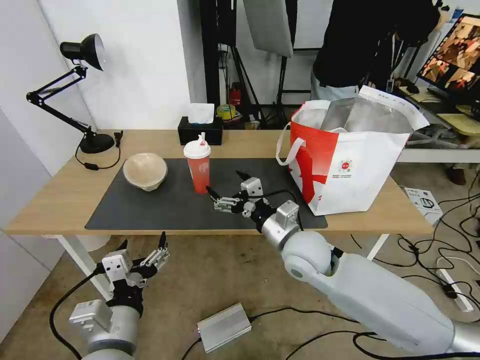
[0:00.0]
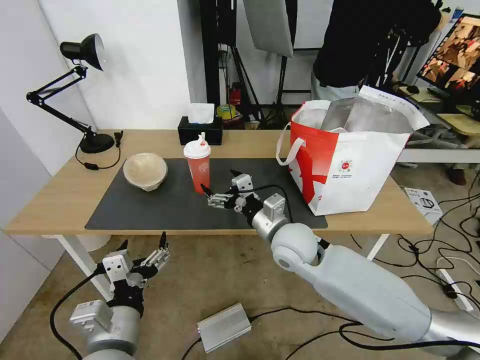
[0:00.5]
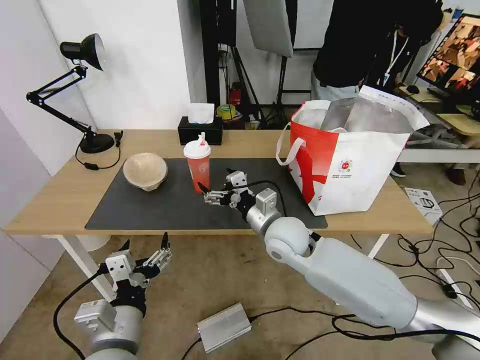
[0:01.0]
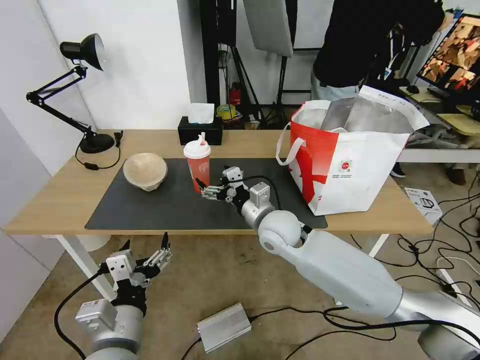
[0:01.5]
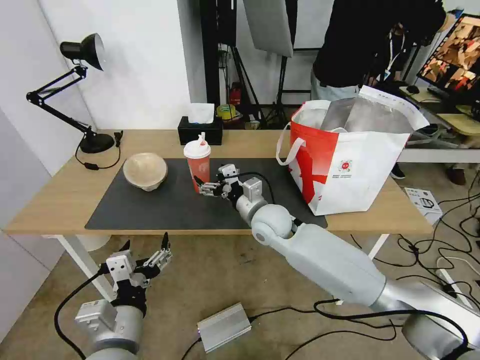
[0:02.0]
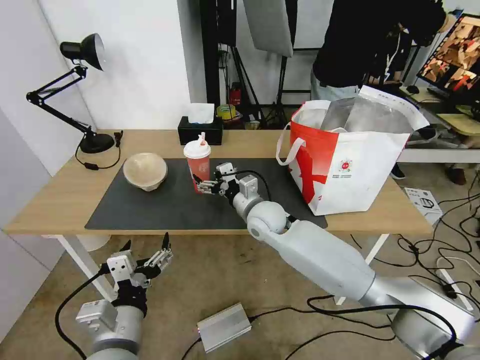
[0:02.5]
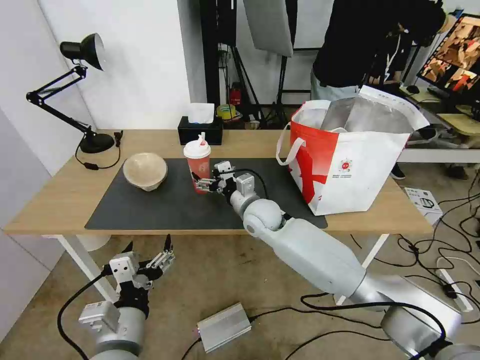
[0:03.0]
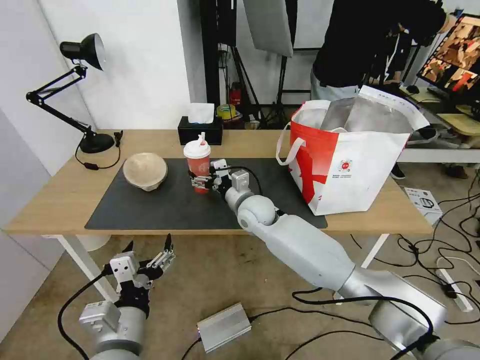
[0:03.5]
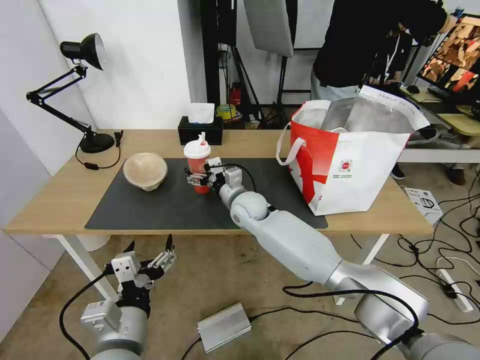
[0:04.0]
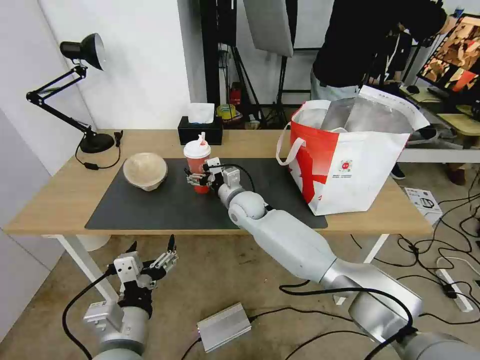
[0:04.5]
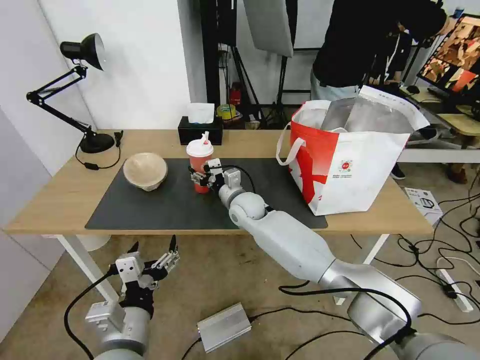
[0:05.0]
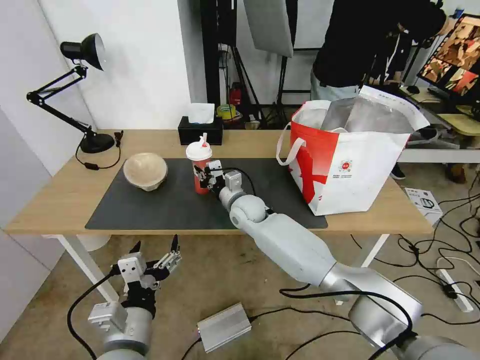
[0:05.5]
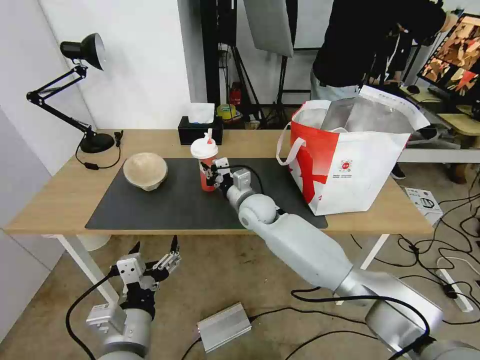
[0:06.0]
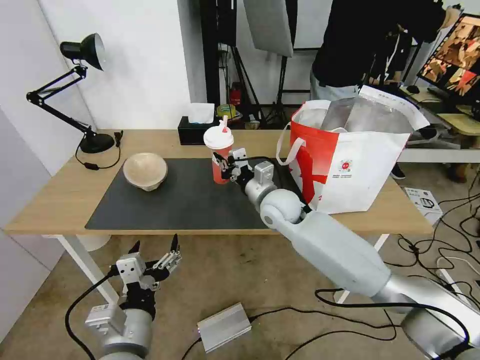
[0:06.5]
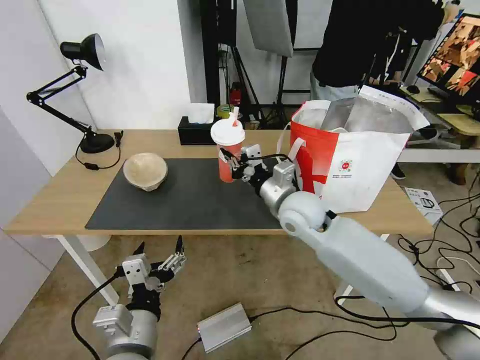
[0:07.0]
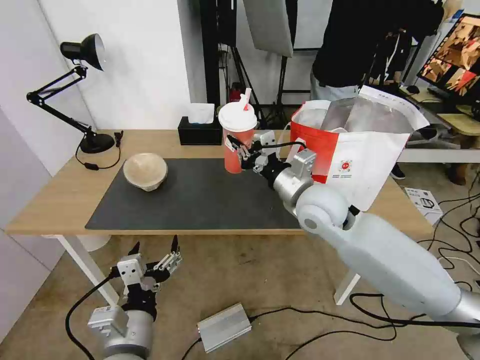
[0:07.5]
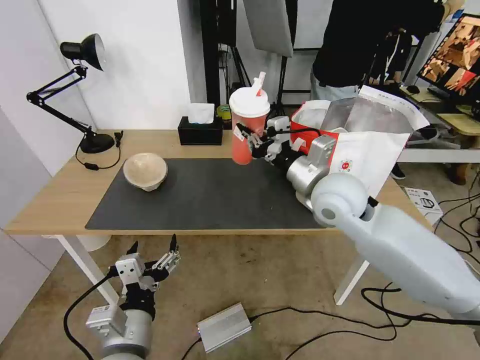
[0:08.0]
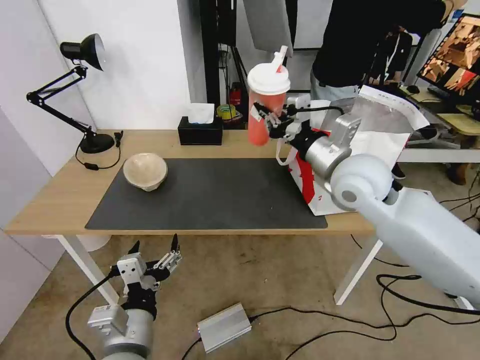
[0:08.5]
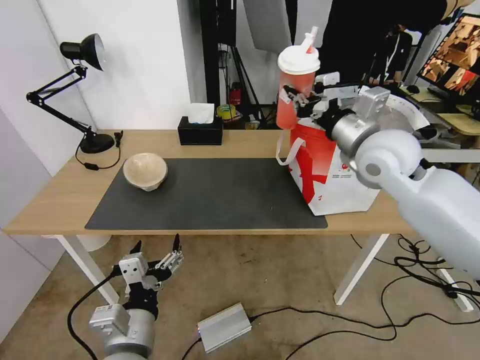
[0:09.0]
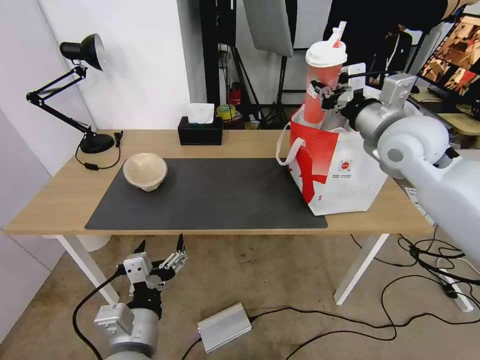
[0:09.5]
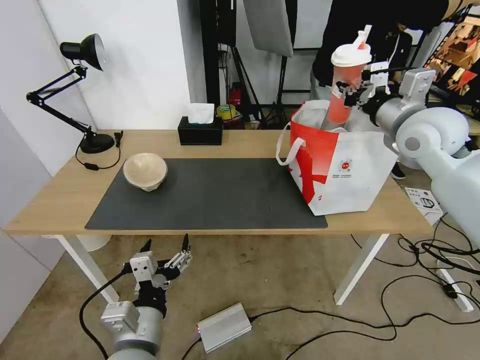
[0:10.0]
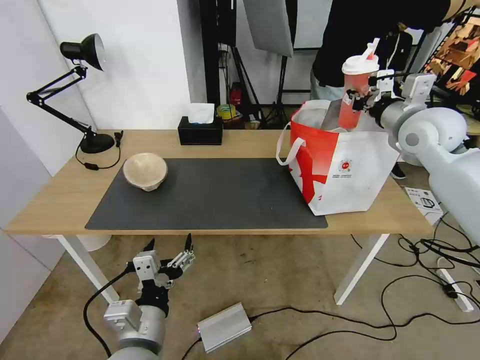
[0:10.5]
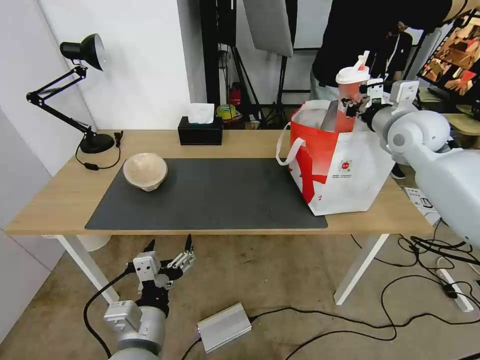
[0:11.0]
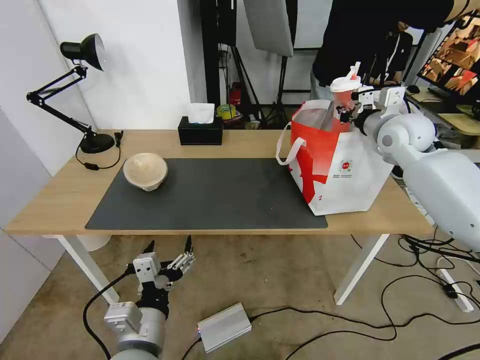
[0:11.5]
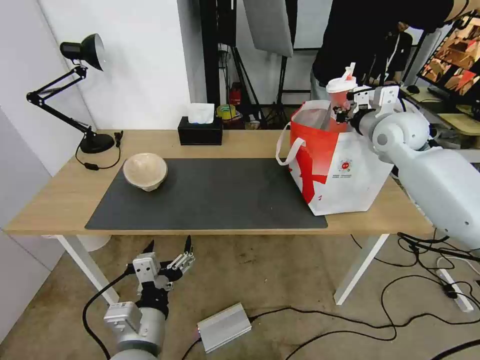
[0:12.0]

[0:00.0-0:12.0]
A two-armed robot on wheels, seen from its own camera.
Task of the whole recording: Pick up the trash from the table and place it into the takeout bag.
0:00.0 to 0:02.0: The right gripper moves forward and to the left, about 10 cm.
0:02.0 to 0:04.0: The right gripper moves forward, about 5 cm.
0:04.0 to 0:06.0: The right gripper closes its fingers.
0:06.0 to 0:08.0: The right gripper is displaced upward, to the right and backward by some 25 cm.
0:08.0 to 0:10.0: The right gripper travels to the right, upward and forward by some 20 cm.
0:10.0 to 0:12.0: The right gripper goes approximately 5 cm forward.

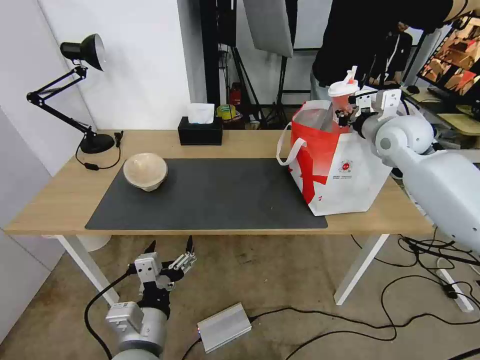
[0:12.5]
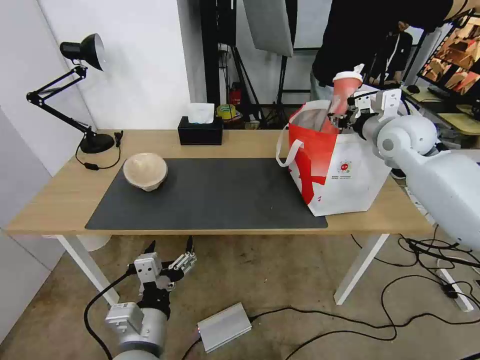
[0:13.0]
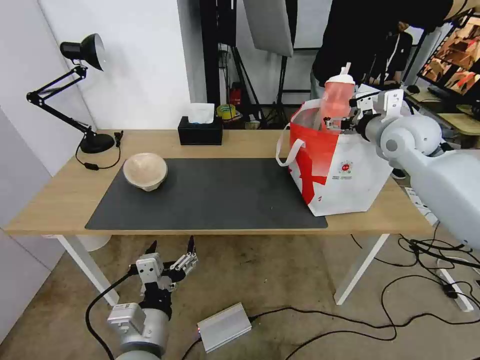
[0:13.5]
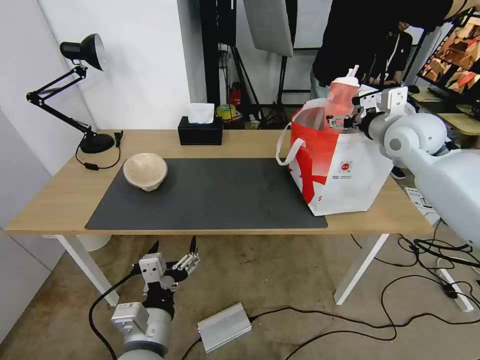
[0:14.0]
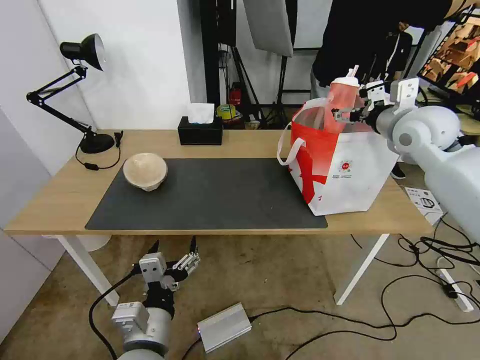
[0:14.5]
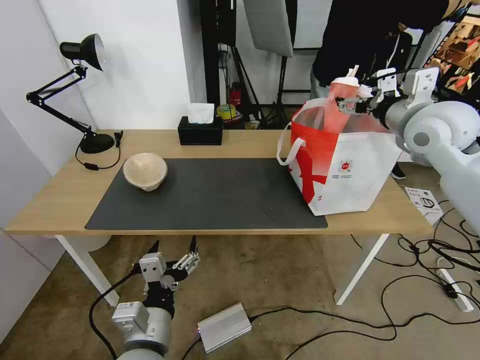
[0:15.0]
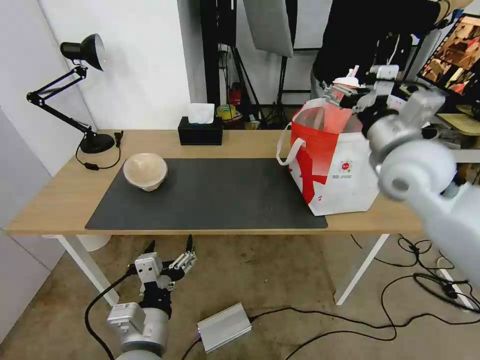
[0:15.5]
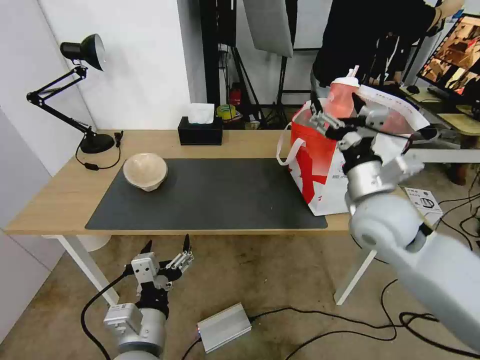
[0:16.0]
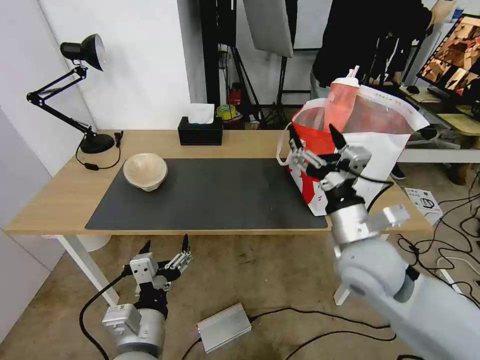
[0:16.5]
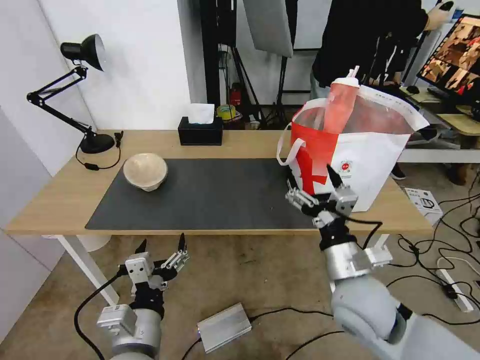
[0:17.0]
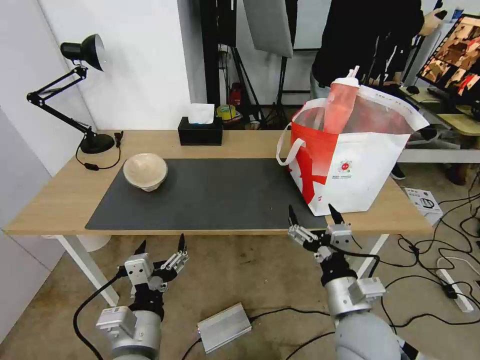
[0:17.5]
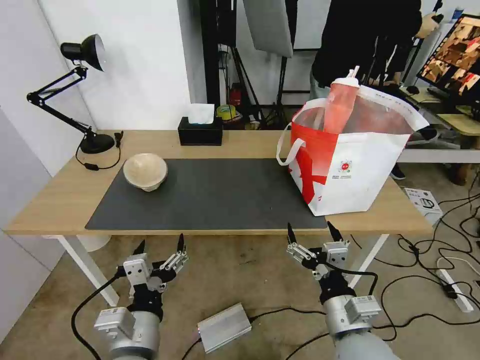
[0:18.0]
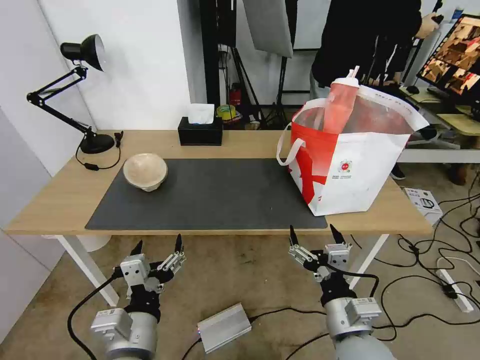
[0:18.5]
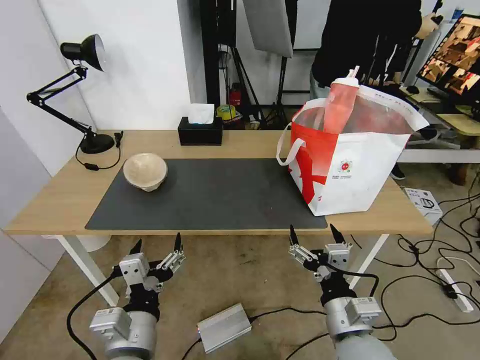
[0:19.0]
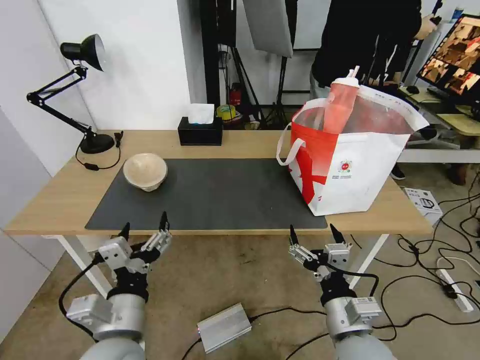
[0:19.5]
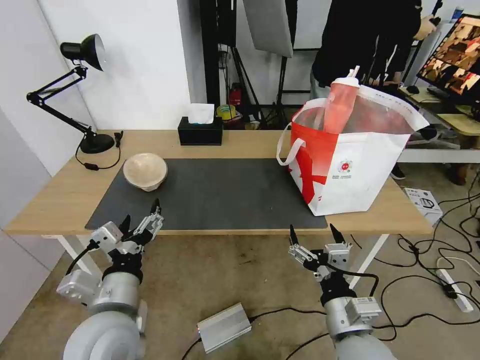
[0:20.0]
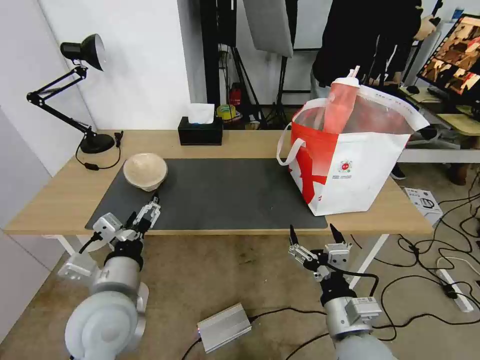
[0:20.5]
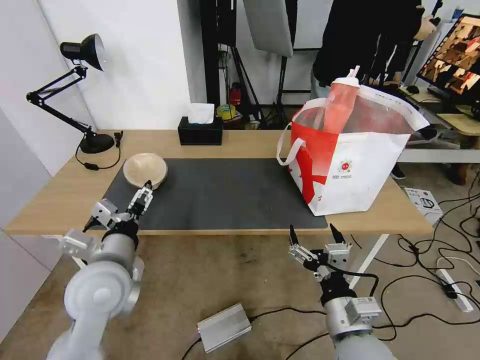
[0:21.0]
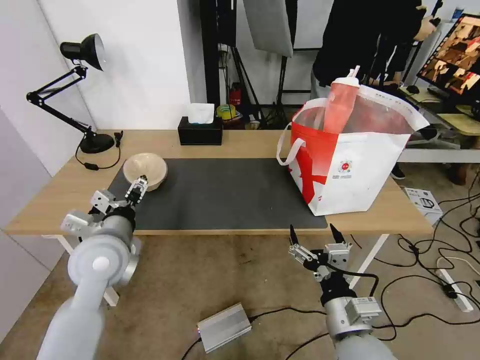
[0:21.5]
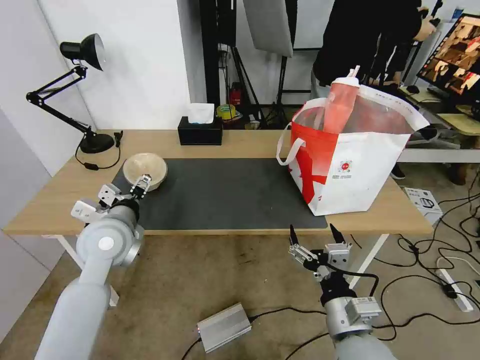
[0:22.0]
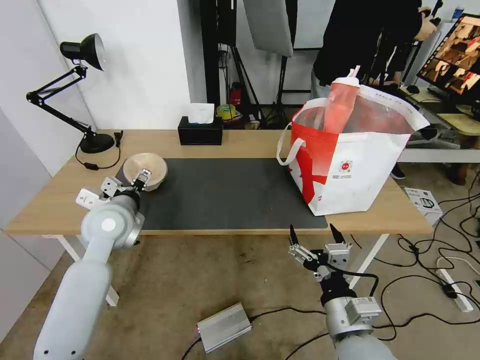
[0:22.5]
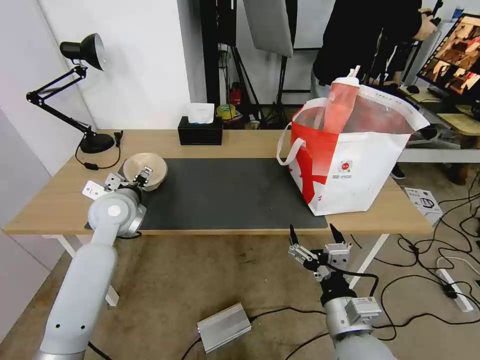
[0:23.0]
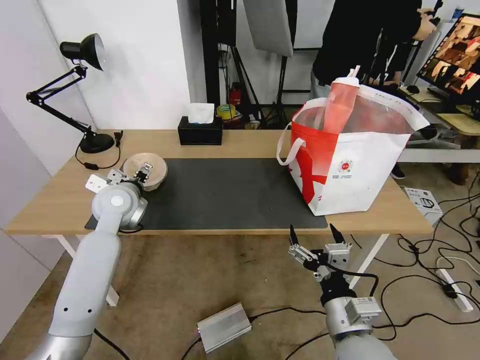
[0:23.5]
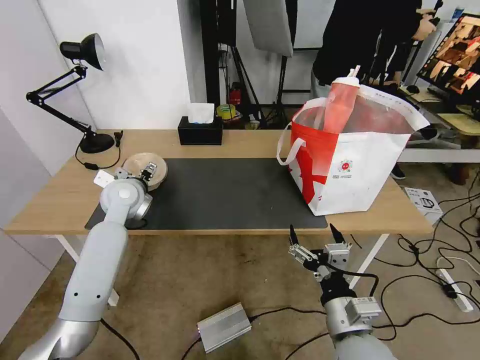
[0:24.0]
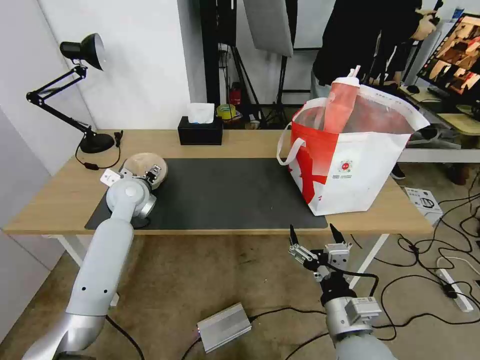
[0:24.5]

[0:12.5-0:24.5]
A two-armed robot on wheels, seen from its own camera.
Task of the whole recording: Pick up the trash from the table and place it into the takeout bag.
0:12.5 to 0:14.5: The right gripper opens up.
0:14.5 to 0:16.5: The right gripper is displaced backward, downward and to the left by some 30 cm.
0:16.5 to 0:18.5: The right gripper moves backward and downward, about 15 cm.
0:18.5 to 0:20.5: The left gripper shifts approximately 10 cm forward.
0:20.5 to 0:22.5: The left gripper travels forward by approximately 15 cm.
0:22.5 to 0:24.5: The left gripper goes approximately 10 cm forward.

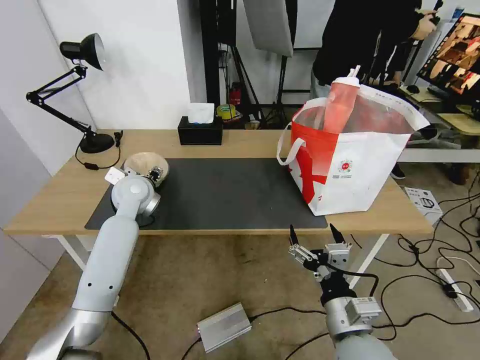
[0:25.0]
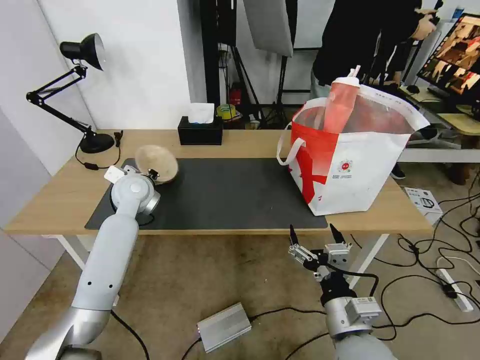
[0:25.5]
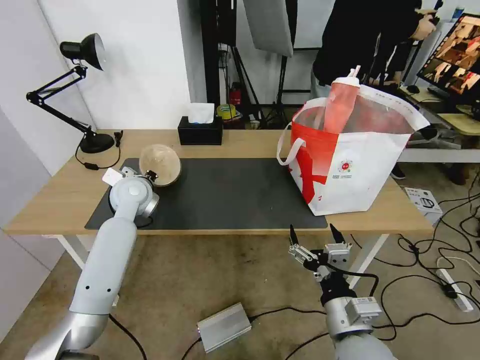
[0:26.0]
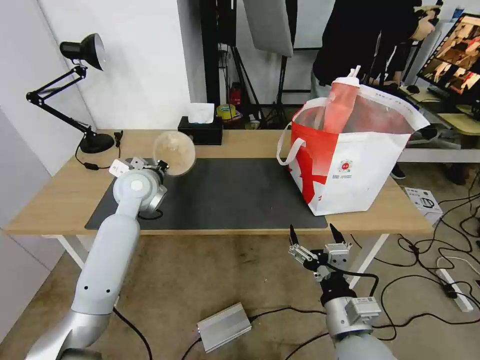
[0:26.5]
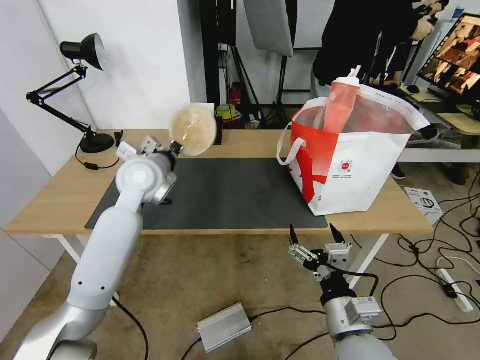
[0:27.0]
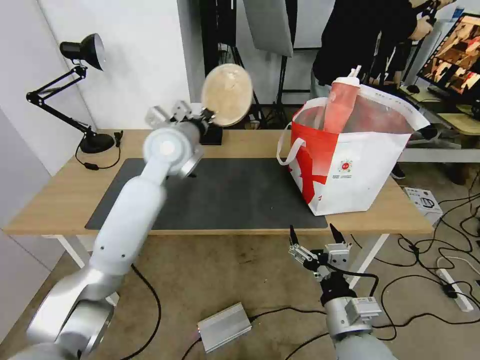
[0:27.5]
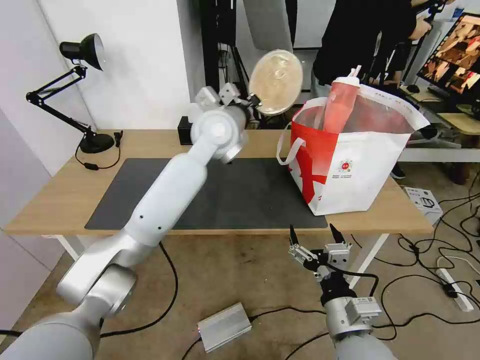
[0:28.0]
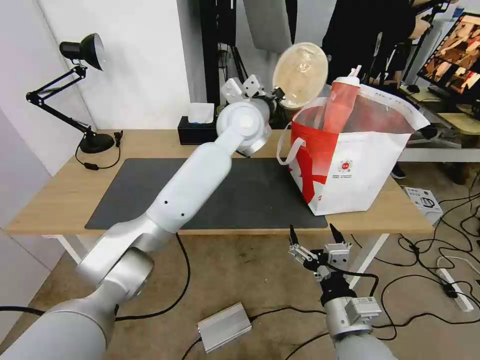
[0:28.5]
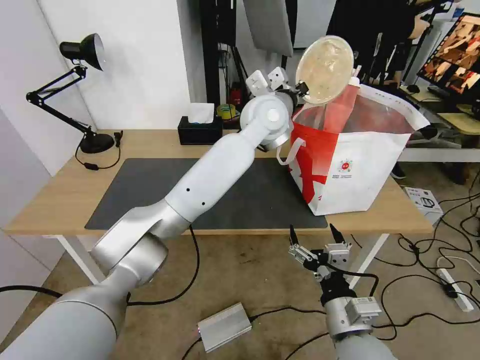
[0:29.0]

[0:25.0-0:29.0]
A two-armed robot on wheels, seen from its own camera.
Task of the whole recording: Pick up the trash from the table and place it into the takeout bag.
0:25.0 to 0:27.0: The left gripper goes some 10 cm upward and to the right, and closes its fingers.
0:27.0 to 0:29.0: The left gripper heads to the right, covering approximately 25 cm.
